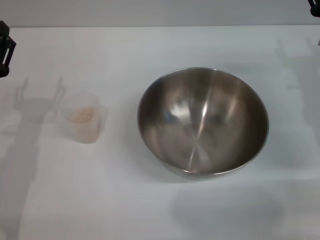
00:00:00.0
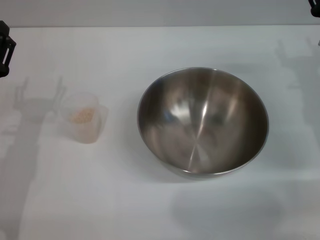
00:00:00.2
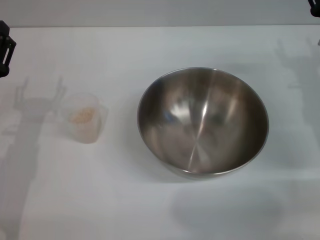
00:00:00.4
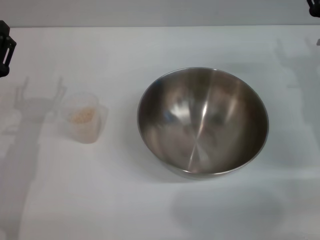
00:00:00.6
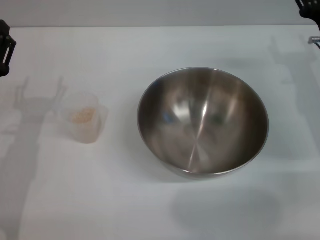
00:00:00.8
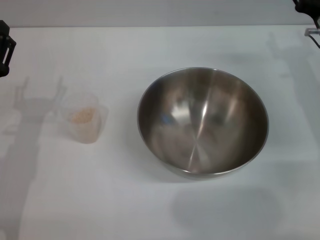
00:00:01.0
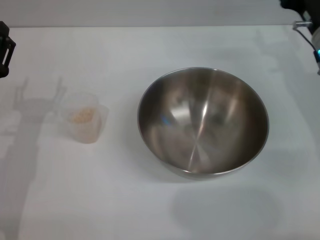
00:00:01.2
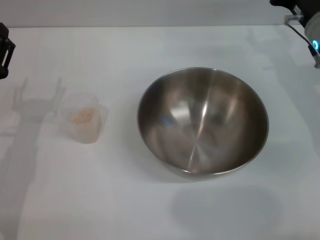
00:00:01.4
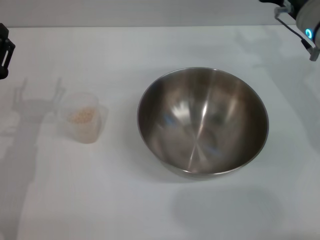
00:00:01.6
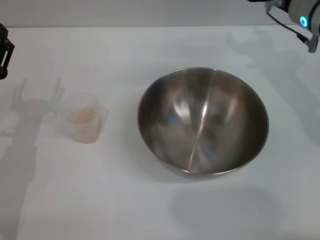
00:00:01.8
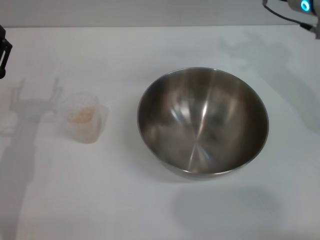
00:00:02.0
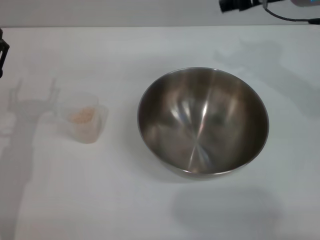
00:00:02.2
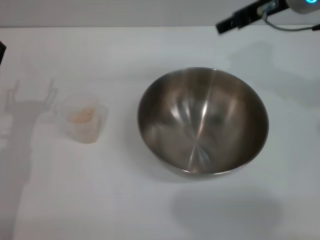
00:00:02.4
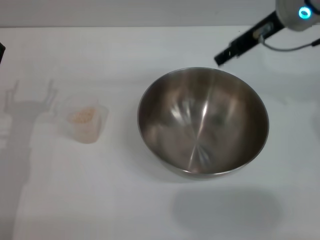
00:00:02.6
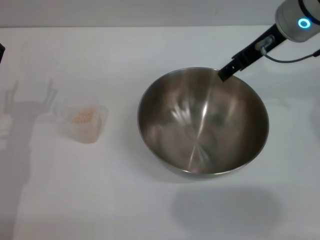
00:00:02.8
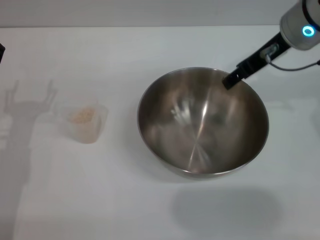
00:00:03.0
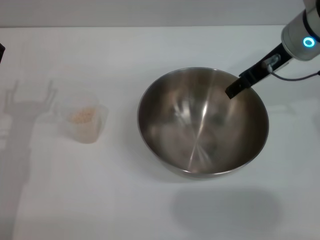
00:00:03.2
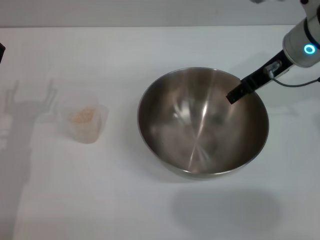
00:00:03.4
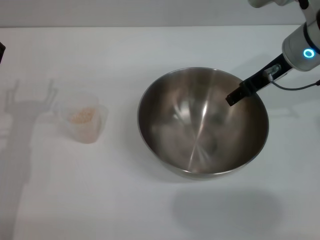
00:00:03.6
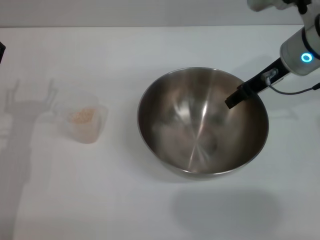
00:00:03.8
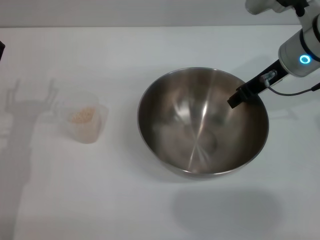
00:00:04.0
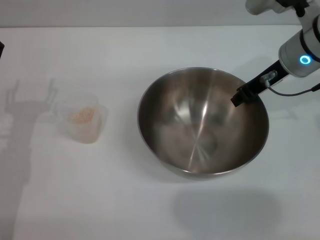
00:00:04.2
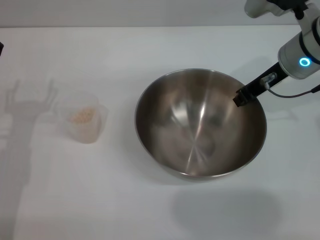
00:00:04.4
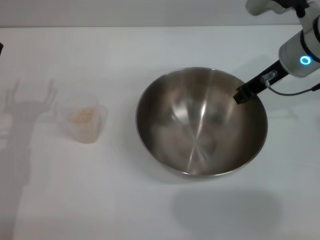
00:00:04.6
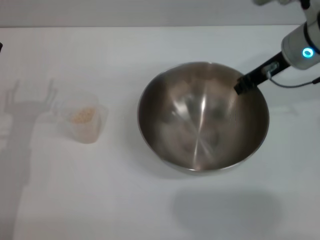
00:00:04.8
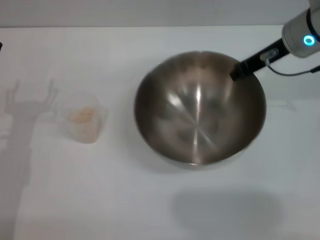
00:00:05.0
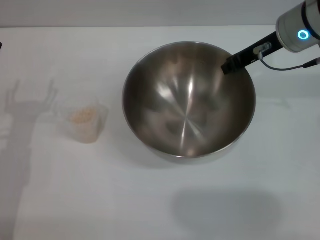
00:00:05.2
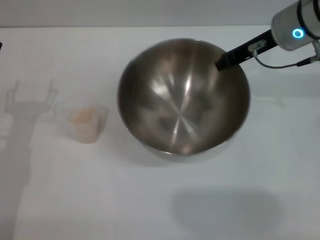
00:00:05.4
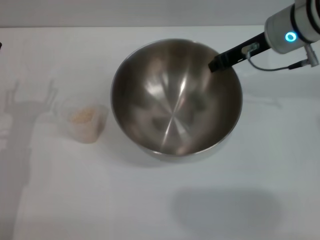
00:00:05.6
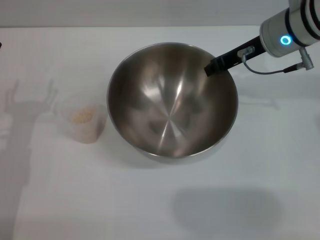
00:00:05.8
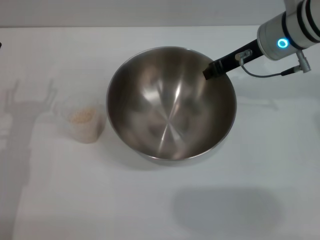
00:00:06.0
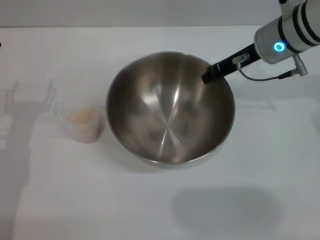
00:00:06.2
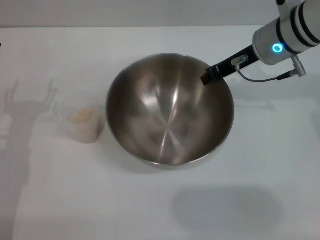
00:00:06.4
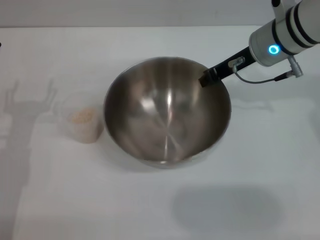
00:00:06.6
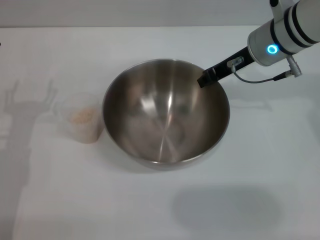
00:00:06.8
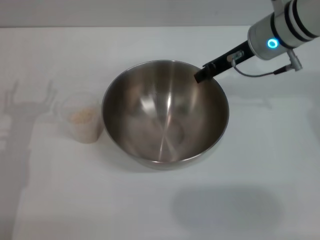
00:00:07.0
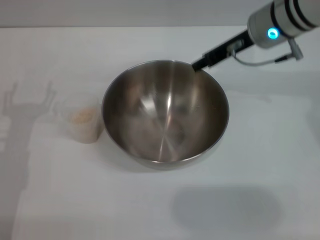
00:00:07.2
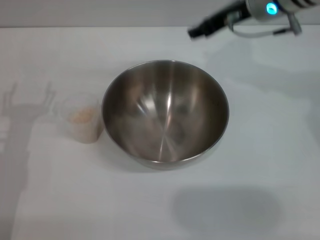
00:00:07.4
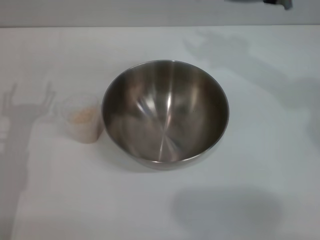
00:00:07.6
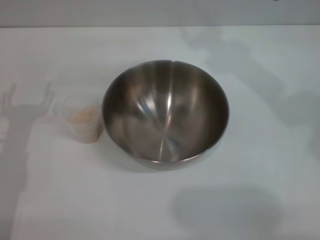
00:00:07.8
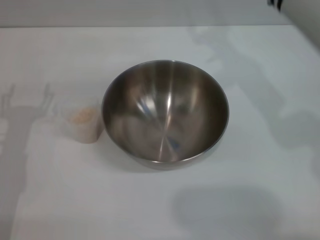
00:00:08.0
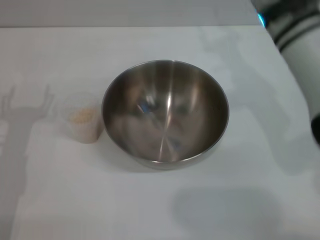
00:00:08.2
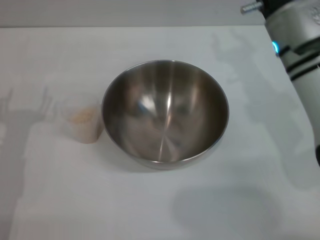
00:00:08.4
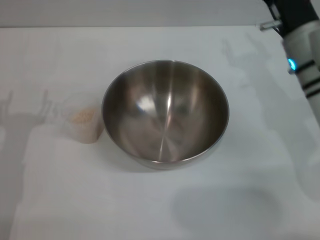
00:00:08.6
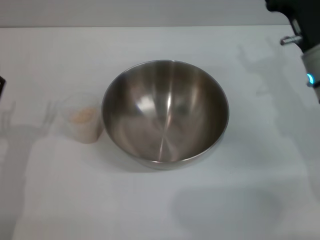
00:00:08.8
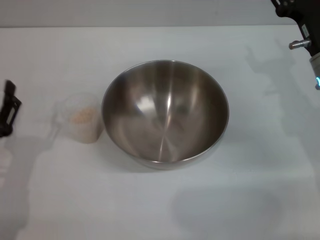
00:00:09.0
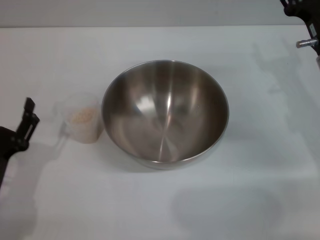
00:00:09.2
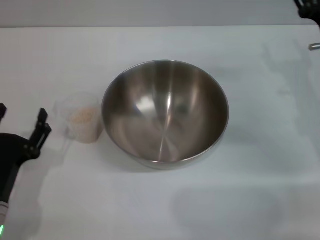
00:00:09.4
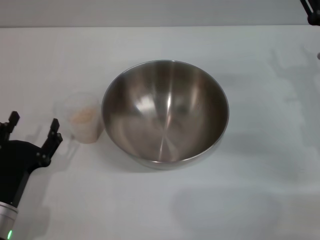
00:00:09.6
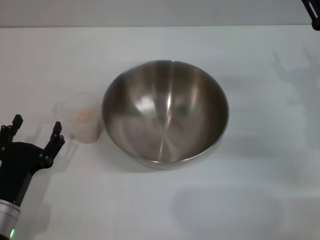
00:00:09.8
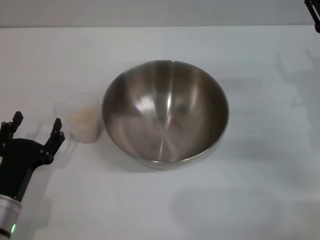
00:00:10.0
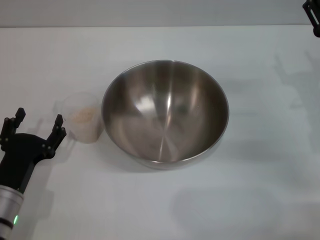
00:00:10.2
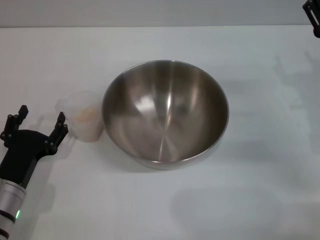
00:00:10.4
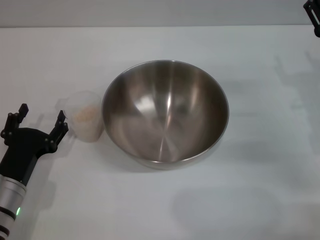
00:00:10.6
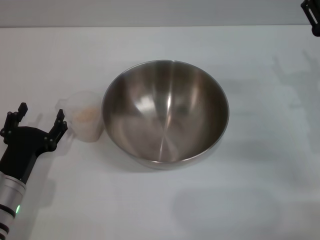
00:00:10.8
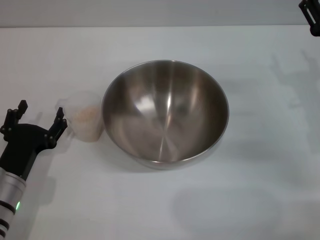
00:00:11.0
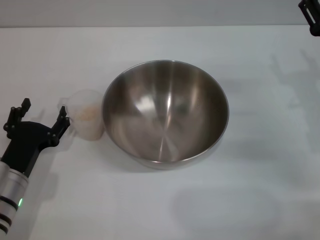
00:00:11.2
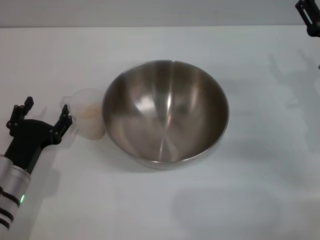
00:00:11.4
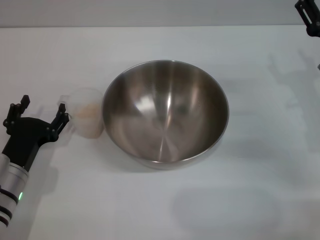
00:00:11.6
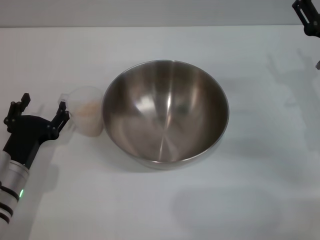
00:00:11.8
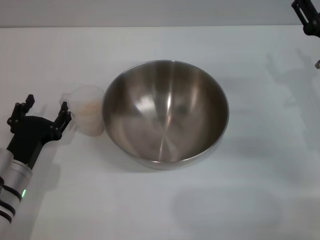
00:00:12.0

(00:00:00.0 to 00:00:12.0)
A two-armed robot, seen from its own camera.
Task of the whole recording: Place the bowl in the middle of the table with one hand and pour the rice from the grain cup into it with the other hand.
Step, 00:00:00.0 - 00:00:05.2: Pick up the bowl with the right gripper.
Step, 00:00:05.4 - 00:00:07.2: Place the bowl in the center of view with the right gripper.
00:00:00.0 - 00:00:01.6: The right gripper travels upward and forward by approximately 10 cm.
00:00:01.6 - 00:00:03.0: The right gripper goes about 5 cm upward.
00:00:03.0 - 00:00:04.4: The right gripper travels downward by some 5 cm, and closes.
00:00:06.0 - 00:00:07.6: The right gripper heads upward, covering approximately 5 cm, and opens its fingers.
00:00:07.6 - 00:00:09.0: The right gripper goes roughly 20 cm downward, to the right and backward, and opens. Meanwhile the left gripper moves backward, approximately 5 cm.
00:00:09.0 - 00:00:10.4: The right gripper shifts by about 5 cm.
00:00:10.4 - 00:00:12.0: There are only small adjustments of the grippers.

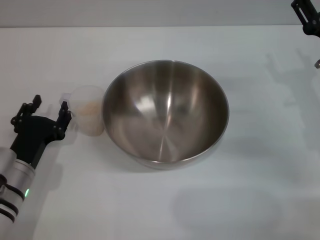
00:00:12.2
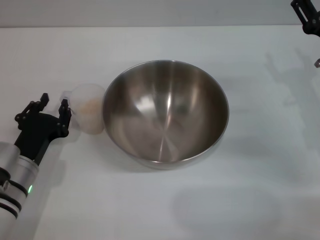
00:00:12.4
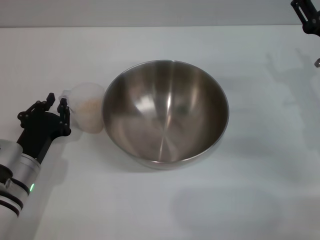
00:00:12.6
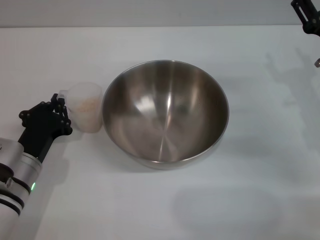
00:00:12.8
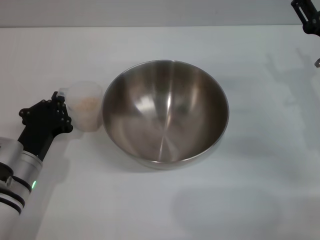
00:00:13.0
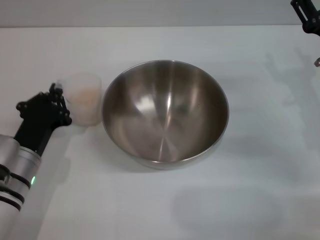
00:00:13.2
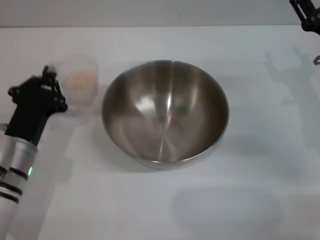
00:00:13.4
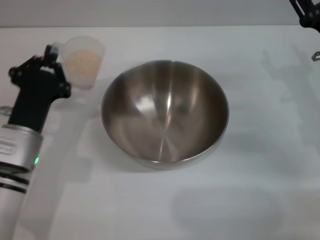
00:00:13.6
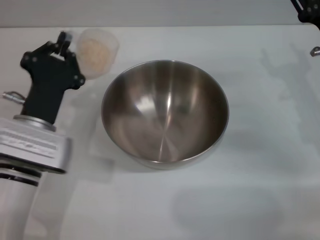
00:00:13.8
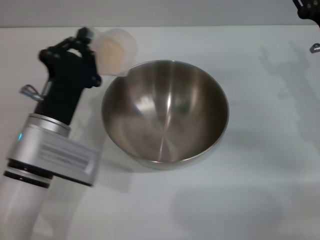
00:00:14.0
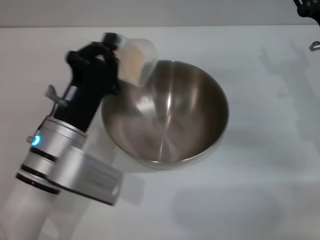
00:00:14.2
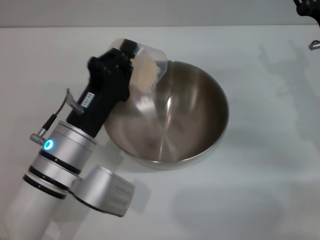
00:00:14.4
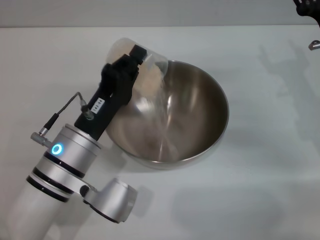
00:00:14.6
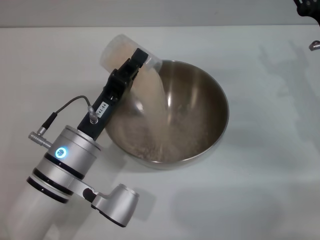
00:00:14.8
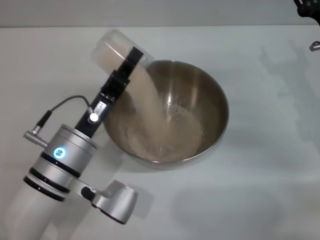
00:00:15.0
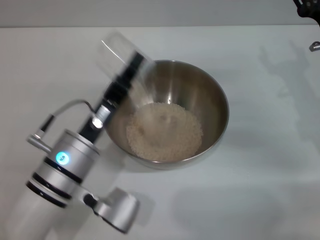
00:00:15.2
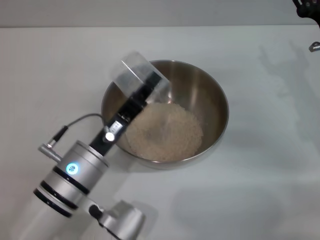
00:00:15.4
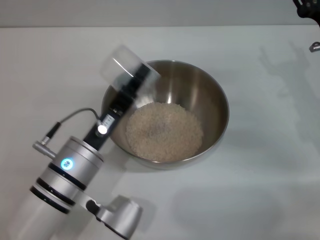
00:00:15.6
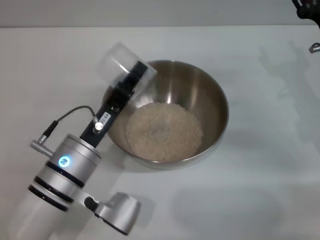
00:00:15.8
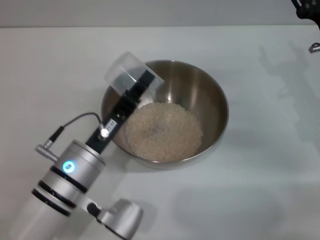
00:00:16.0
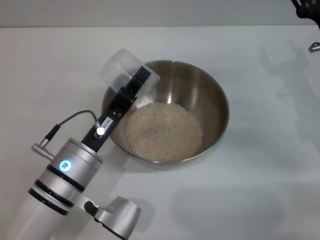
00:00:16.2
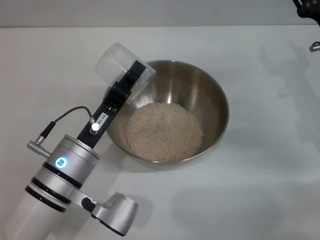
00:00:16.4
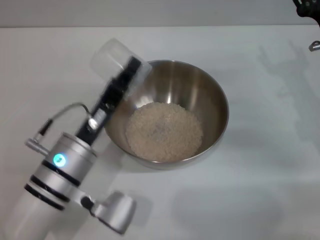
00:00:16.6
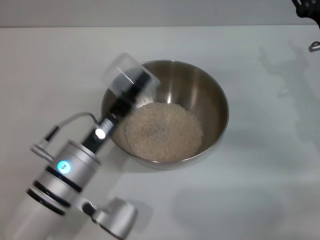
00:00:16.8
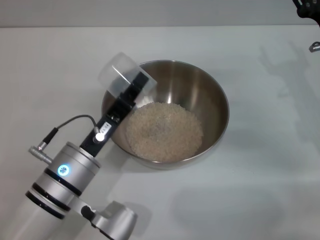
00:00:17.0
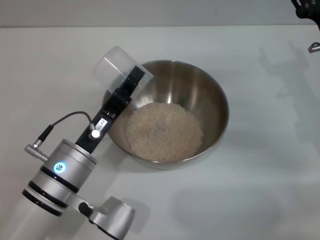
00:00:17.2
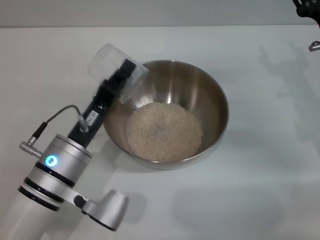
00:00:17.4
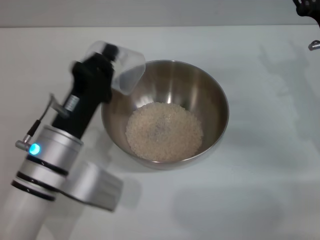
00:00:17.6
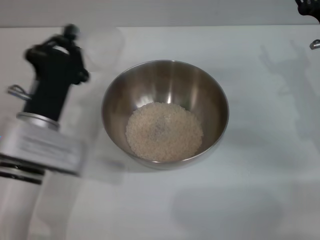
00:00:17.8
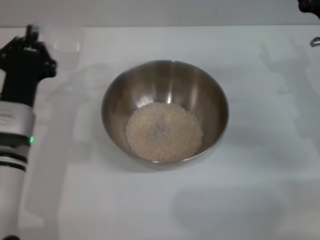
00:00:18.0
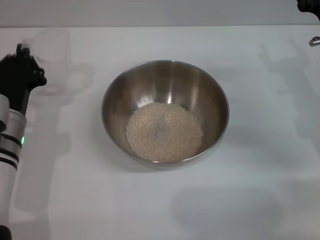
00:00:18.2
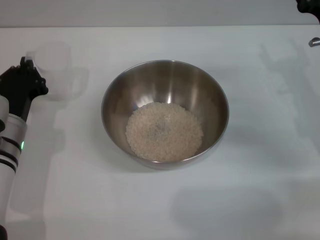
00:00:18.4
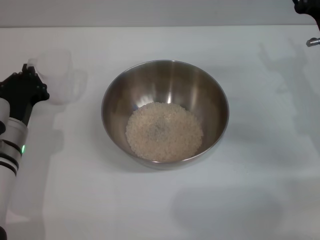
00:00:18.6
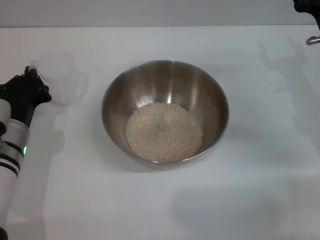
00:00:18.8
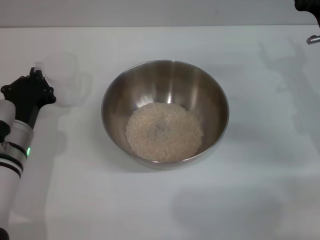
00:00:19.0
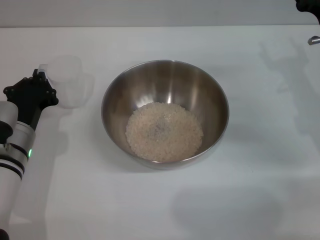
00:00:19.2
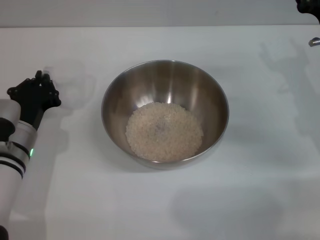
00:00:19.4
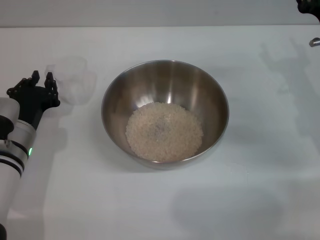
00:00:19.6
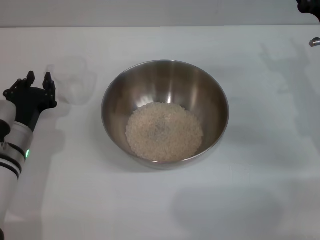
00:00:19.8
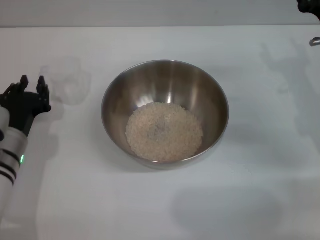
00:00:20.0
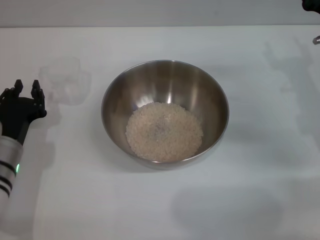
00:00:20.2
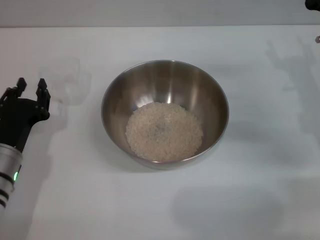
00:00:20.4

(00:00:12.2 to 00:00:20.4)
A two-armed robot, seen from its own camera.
Task of the whole recording: Place the bowl in the middle of the table with one hand and pour the rice from the grain cup into it with the other hand.
Step, 00:00:13.6 - 00:00:17.6: Pour the rice from the cup into the bowl with the left gripper.
Step, 00:00:17.8 - 00:00:20.2: Place the cup on the table with the left gripper.
00:00:12.2 - 00:00:13.8: The left gripper heads upward and to the right, covering roughly 10 cm, and closes its fingers.
00:00:13.8 - 00:00:15.4: The left gripper is displaced to the right by about 5 cm.
00:00:15.4 - 00:00:17.2: The grippers stay close to where they were, moving slightly.
00:00:17.2 - 00:00:18.8: The left gripper moves to the left and forward, about 10 cm.
00:00:18.8 - 00:00:20.4: The left gripper opens up.
